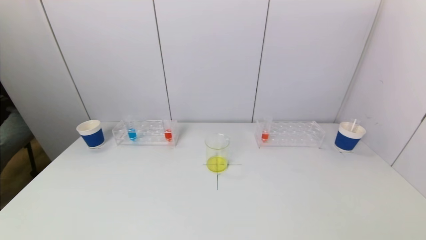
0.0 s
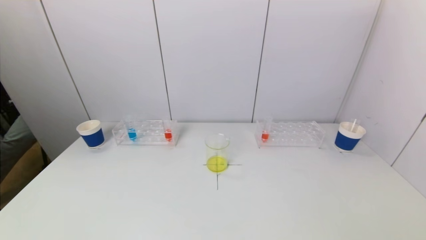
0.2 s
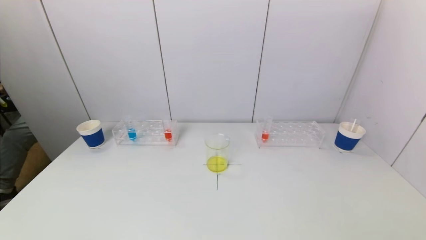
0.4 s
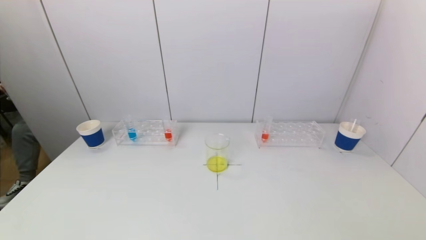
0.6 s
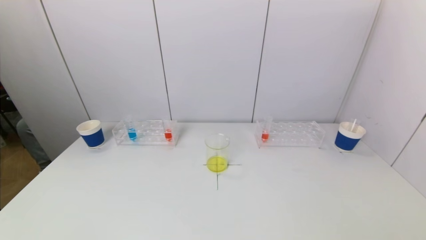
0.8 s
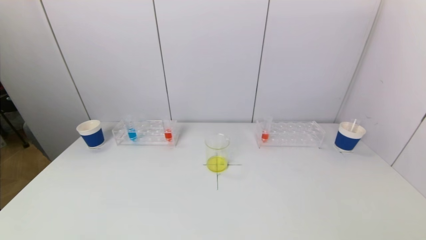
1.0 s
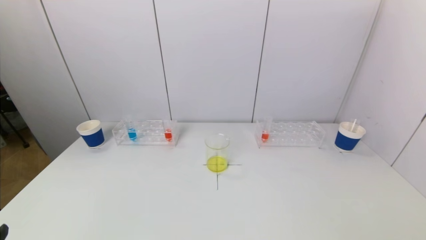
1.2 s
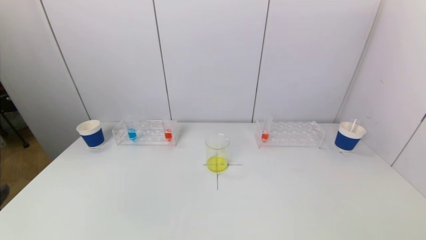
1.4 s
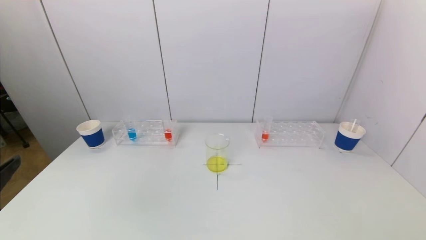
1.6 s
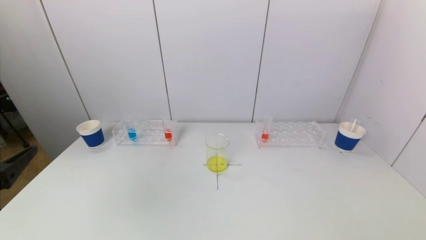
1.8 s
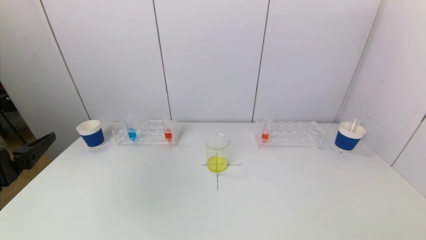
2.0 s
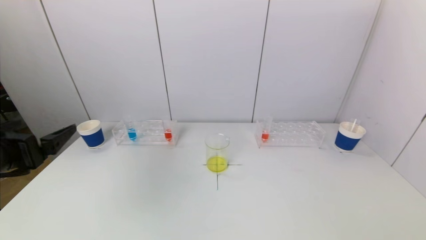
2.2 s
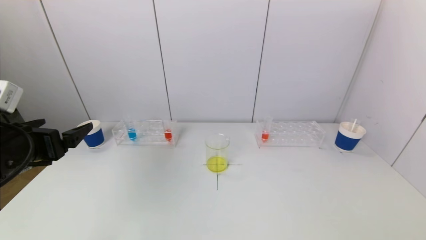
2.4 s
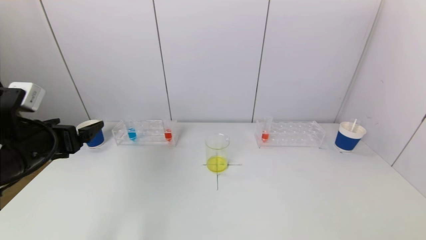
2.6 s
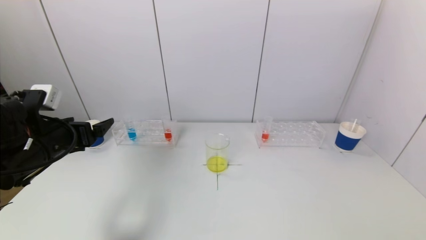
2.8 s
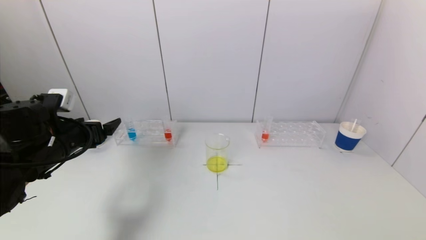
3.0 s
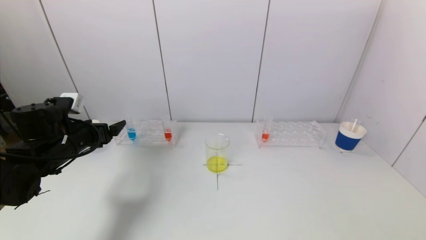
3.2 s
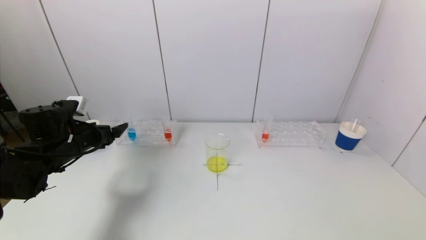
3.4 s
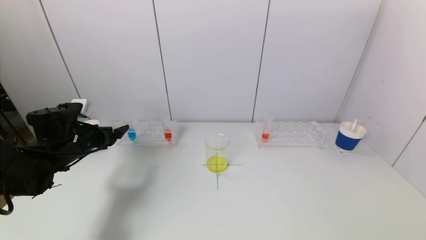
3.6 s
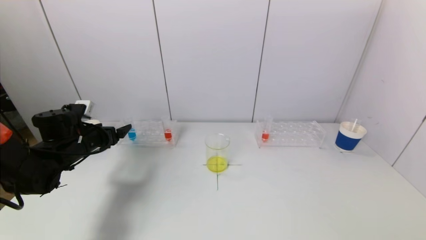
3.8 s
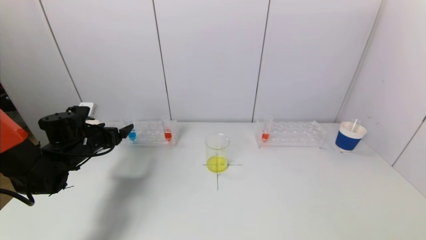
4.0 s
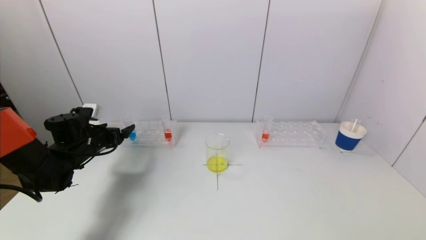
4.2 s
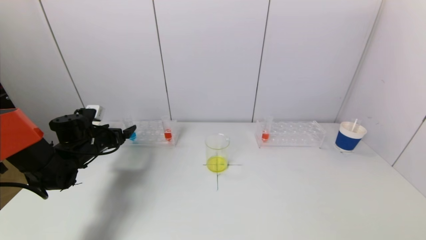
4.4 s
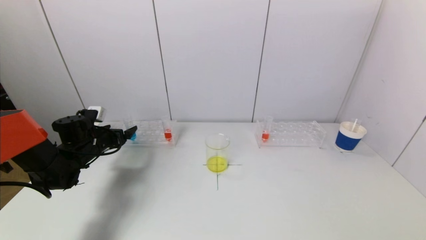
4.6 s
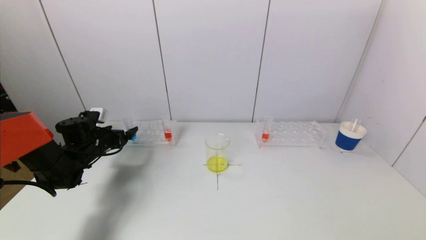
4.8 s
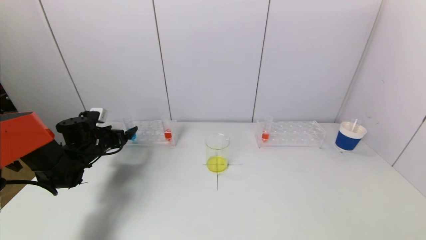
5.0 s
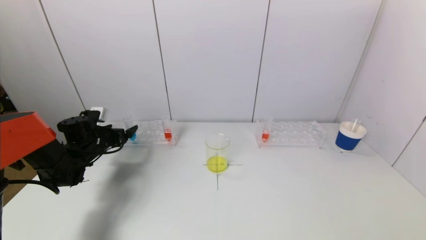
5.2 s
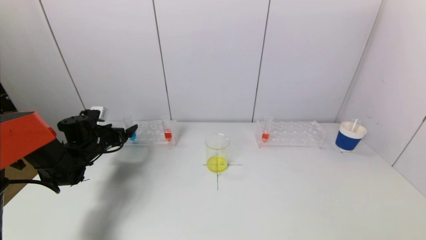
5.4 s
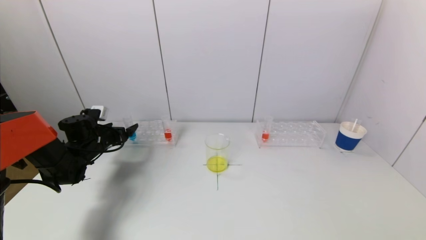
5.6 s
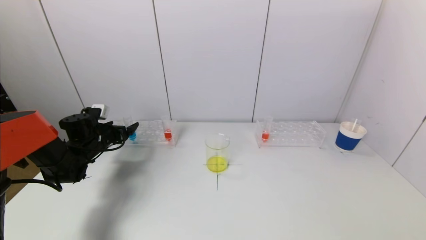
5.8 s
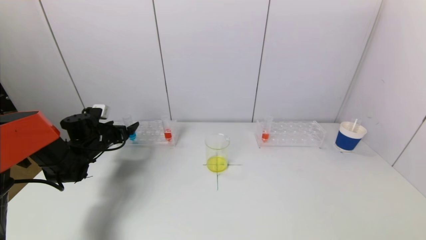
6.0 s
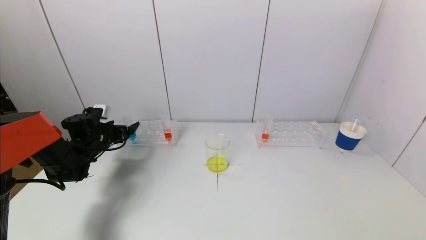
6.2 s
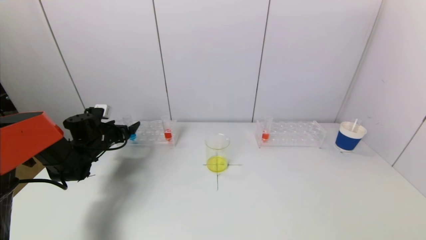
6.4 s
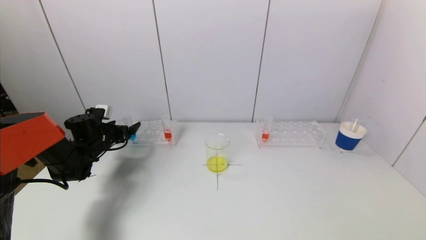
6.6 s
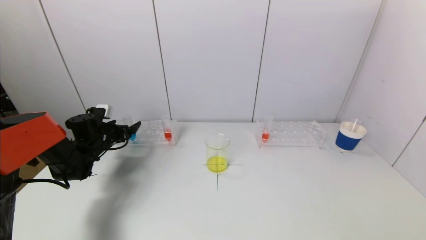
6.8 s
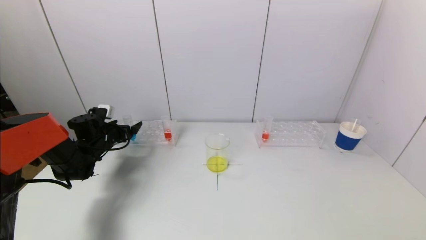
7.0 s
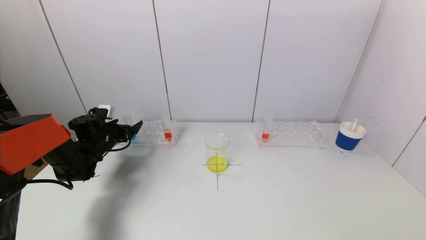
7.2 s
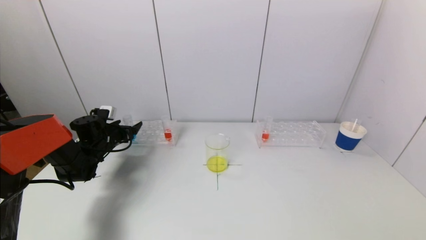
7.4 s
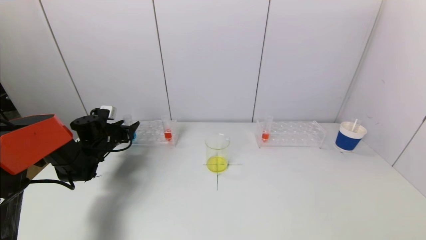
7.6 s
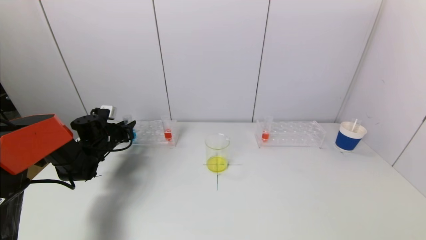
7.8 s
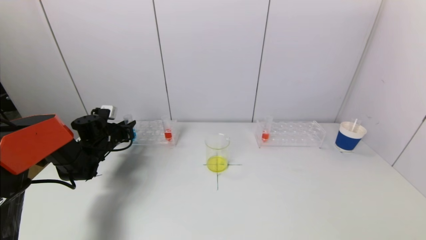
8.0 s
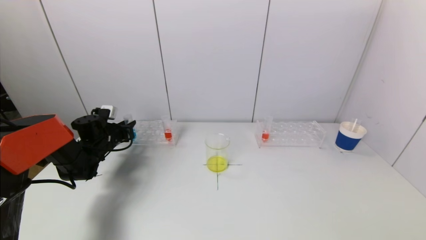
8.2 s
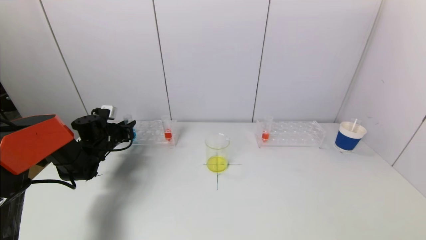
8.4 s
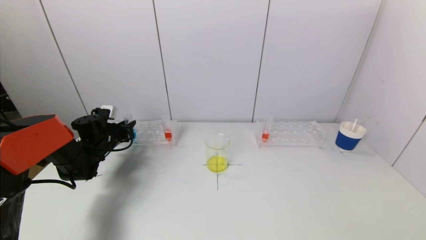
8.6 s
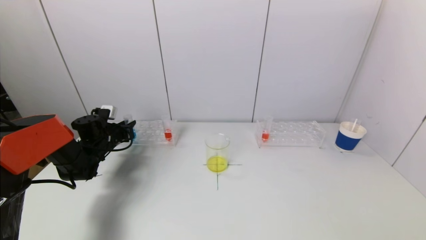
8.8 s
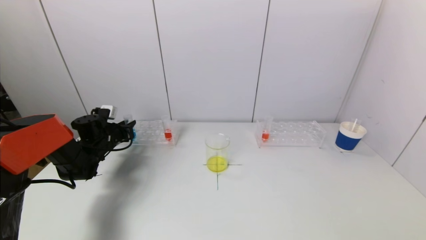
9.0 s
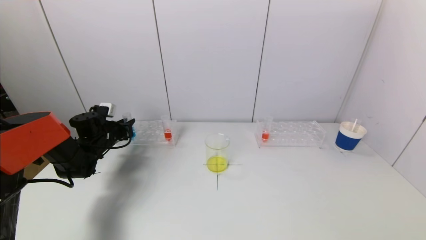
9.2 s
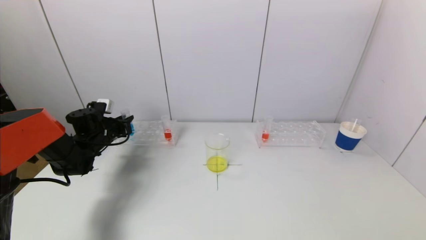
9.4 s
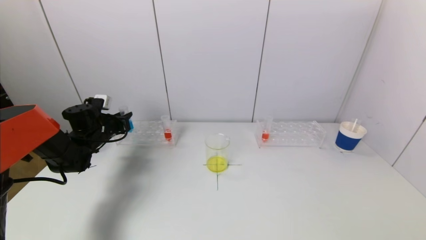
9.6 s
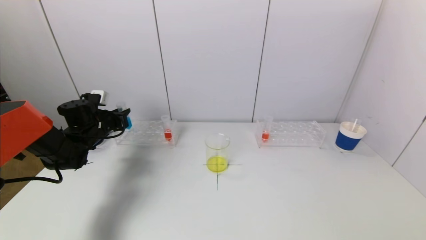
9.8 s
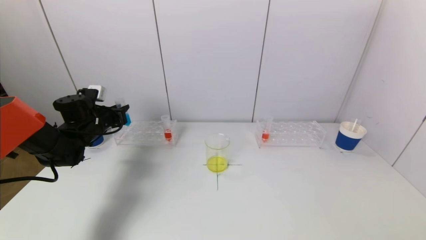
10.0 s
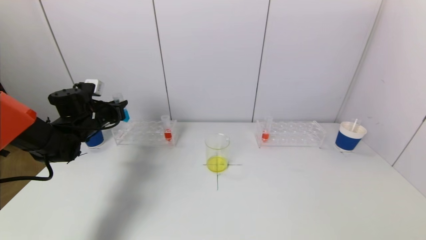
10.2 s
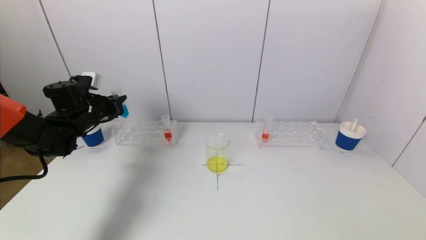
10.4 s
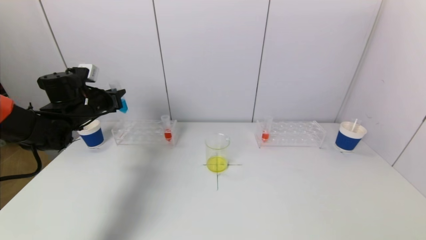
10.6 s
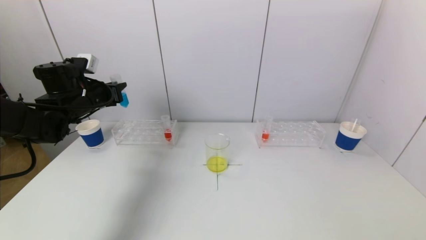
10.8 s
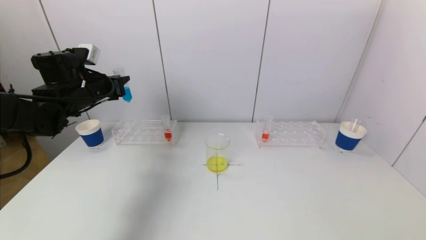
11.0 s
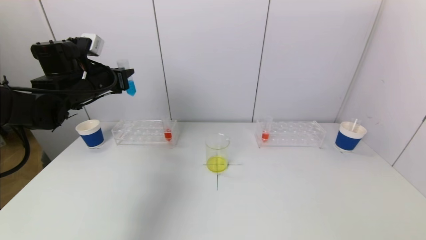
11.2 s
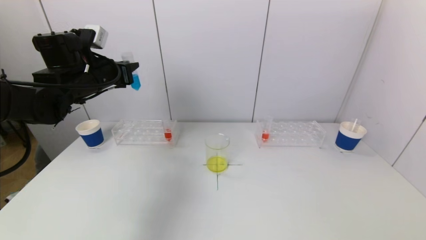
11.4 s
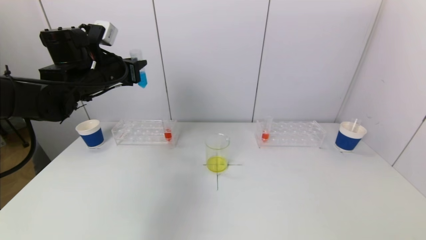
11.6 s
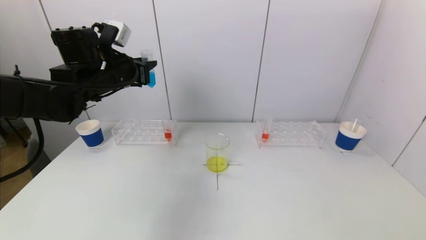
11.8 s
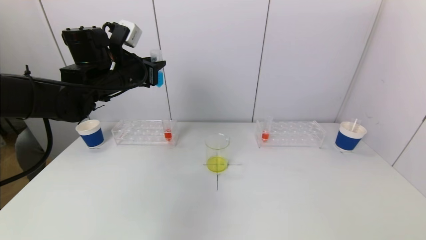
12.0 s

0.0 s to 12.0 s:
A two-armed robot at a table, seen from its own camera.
Task of the whole recording: pick up a test tube with pigment on left test tube rack and a test tube with pigment on right test tube rack by grippers and pour them into the beaker.
Step, 0.0 to 7.8 s: Grasp the blue reagent with the left gripper.
0.0 to 1.6 s: The left gripper heads upward and forward, covering approximately 15 cm.
1.6 to 3.0 s: The left gripper shifts about 20 cm forward.
3.0 to 4.4 s: The left gripper shifts about 15 cm forward and downward.
4.4 to 6.0 s: The grippers make only small movements.
6.0 to 7.6 s: The left gripper closes up.
7.6 to 9.0 s: The left gripper closes up.
9.0 to 10.4 s: The left gripper moves upward, about 10 cm.
10.4 to 12.0 s: The left gripper goes some 15 cm to the right and upward.

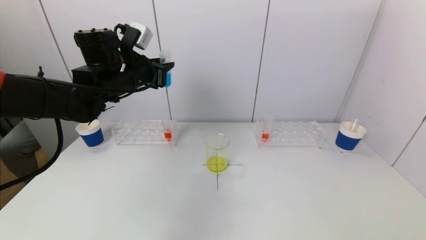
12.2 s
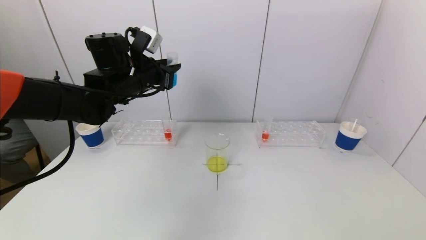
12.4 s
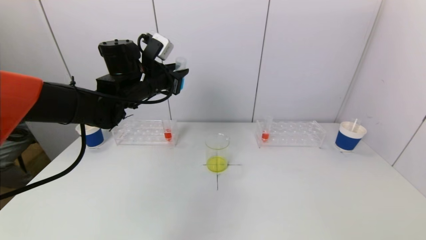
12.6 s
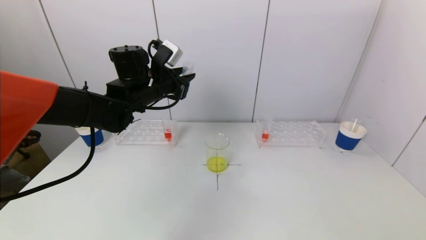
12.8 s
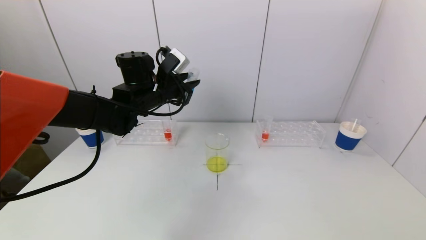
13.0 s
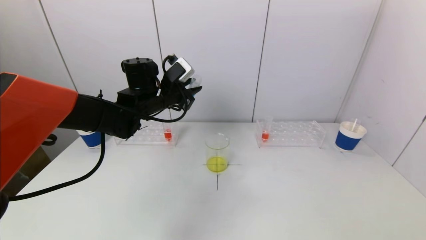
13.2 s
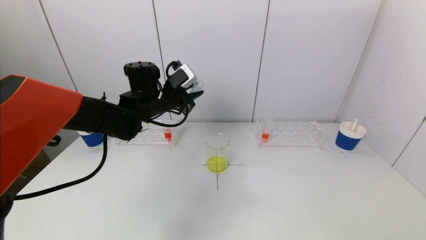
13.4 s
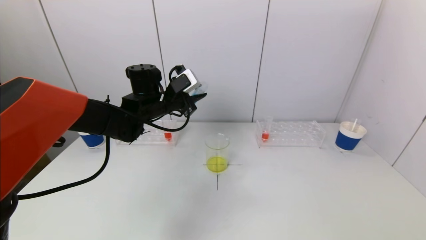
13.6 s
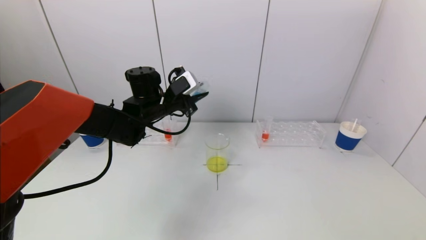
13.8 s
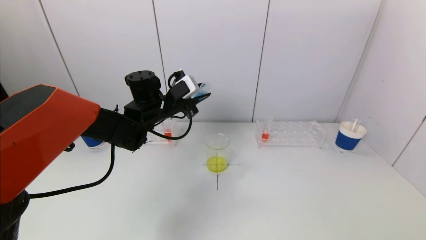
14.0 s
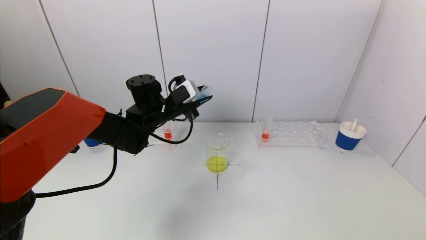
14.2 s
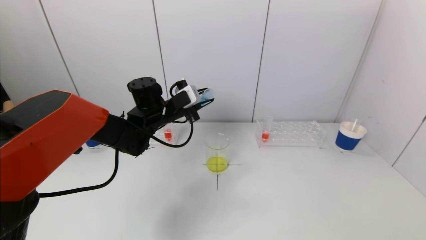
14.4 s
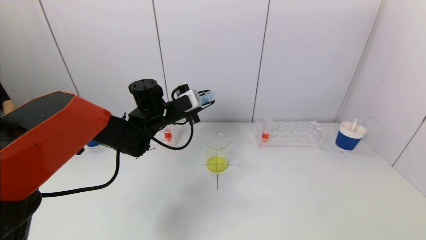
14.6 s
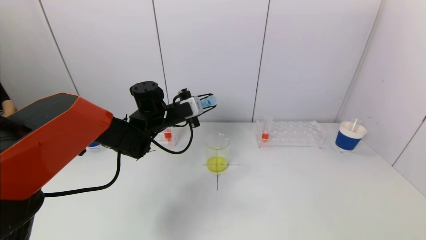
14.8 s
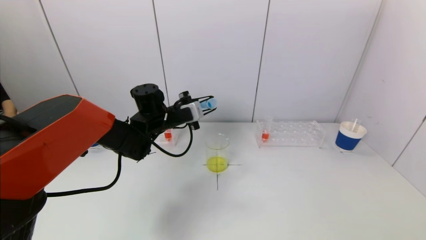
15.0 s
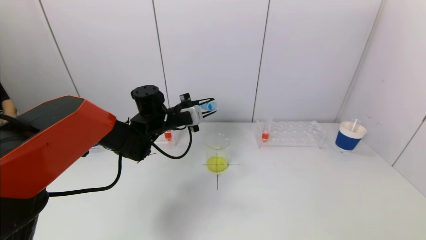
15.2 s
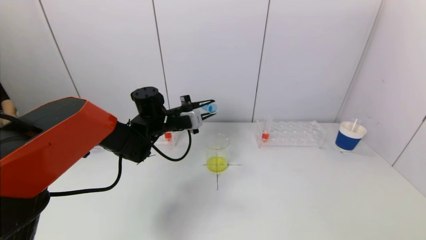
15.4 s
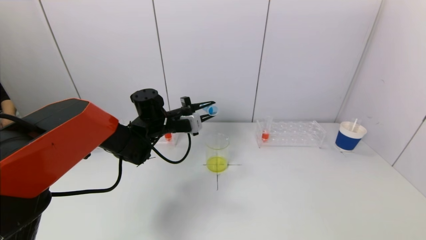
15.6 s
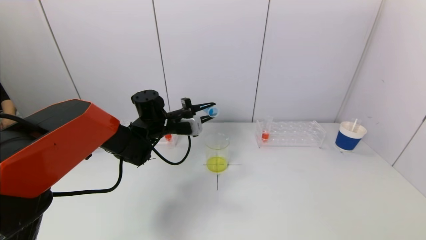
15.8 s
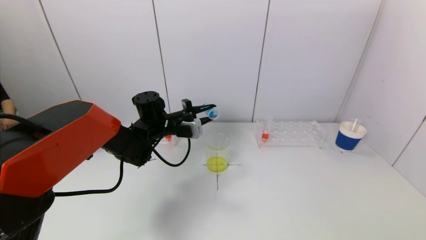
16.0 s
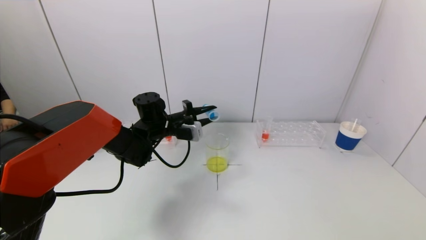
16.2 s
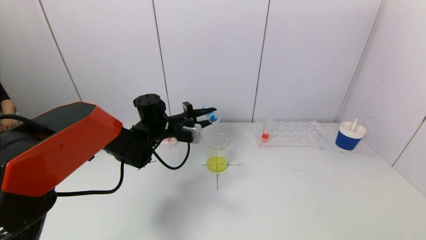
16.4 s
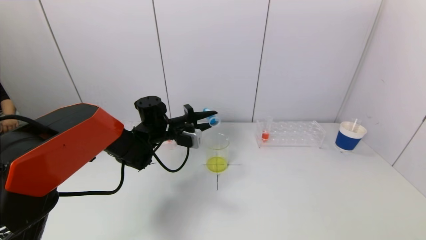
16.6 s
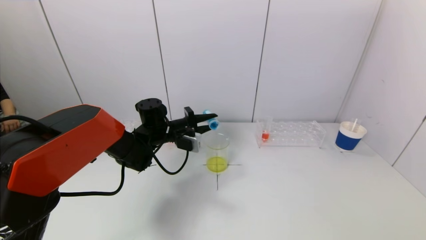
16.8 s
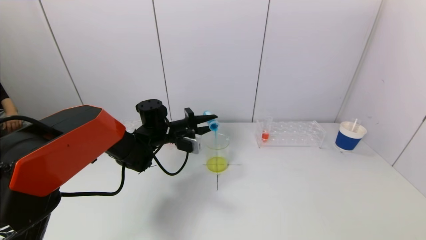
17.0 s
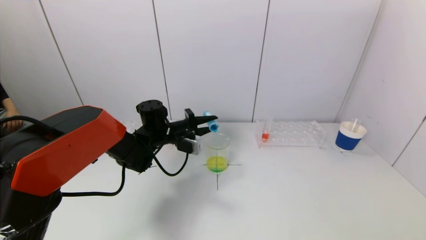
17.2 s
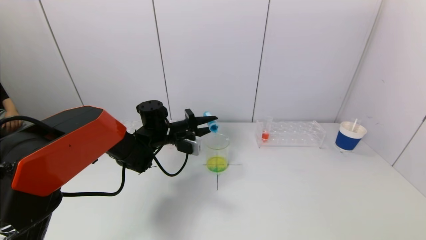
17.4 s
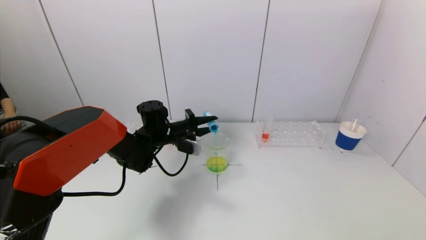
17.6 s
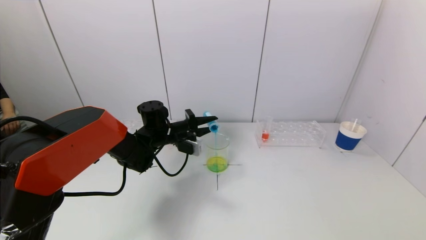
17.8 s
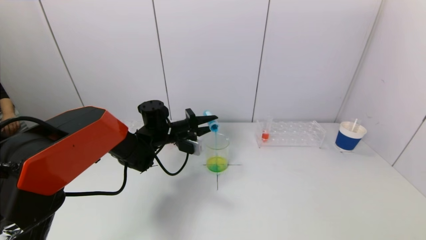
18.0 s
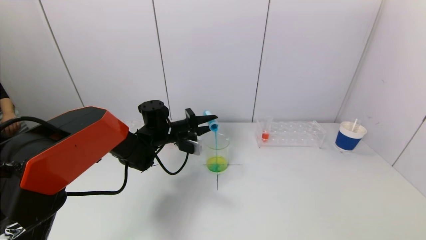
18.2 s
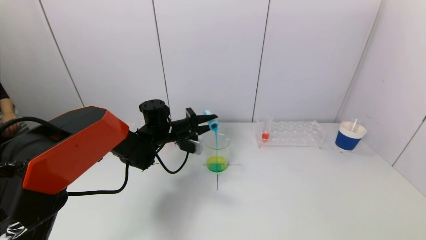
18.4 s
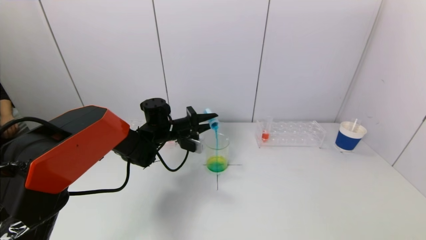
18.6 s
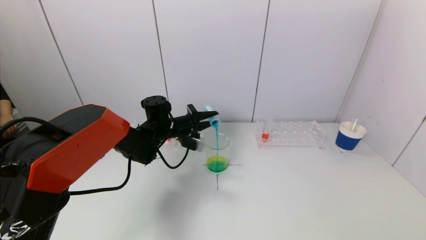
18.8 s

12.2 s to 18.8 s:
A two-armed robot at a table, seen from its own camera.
Task of the whole recording: pick up a test tube with pigment on left test tube rack and a test tube with pigment on right test tube rack by grippers and pour them into the beaker.
12.2 to 13.8 s: The left gripper moves downward and to the right, approximately 10 cm.
15.4 to 17.2 s: There are only small adjustments of the grippers.
17.2 to 18.8 s: The grippers stay close to where they were, moving slightly.
